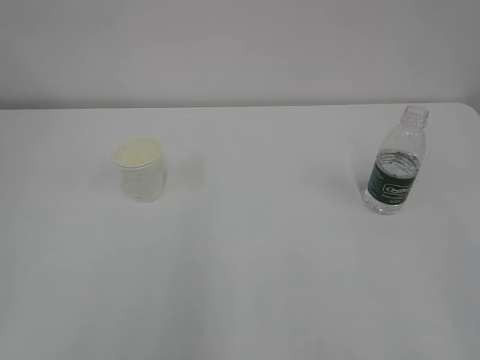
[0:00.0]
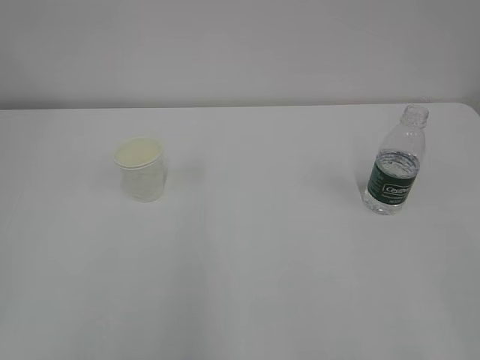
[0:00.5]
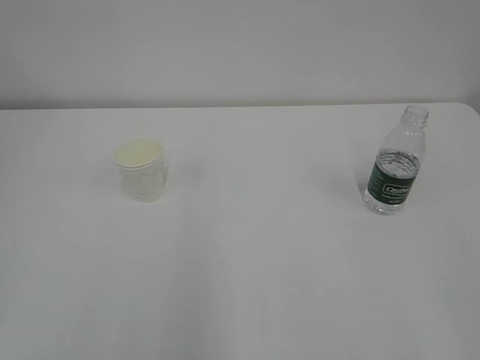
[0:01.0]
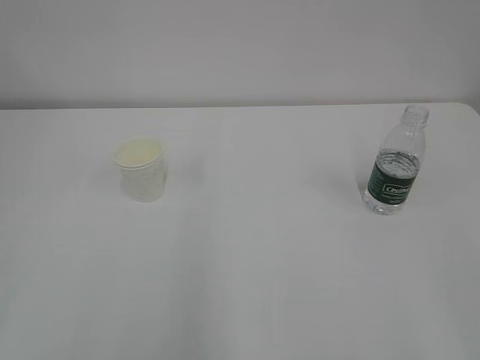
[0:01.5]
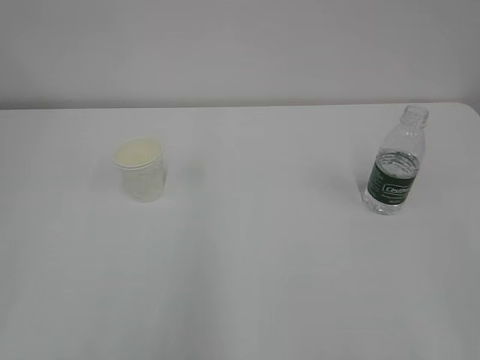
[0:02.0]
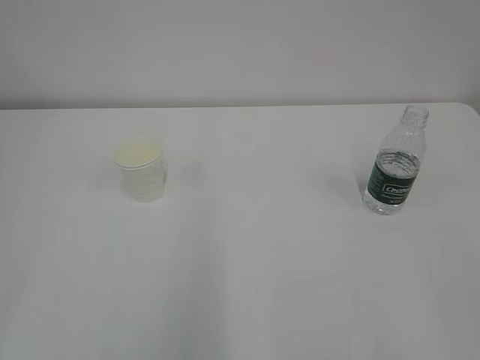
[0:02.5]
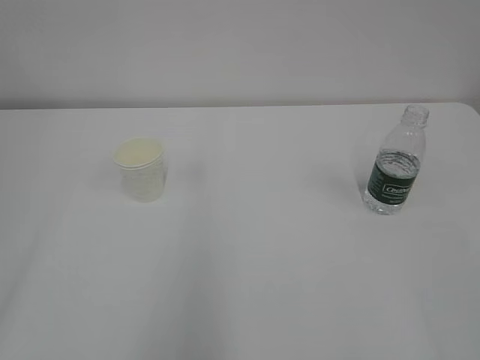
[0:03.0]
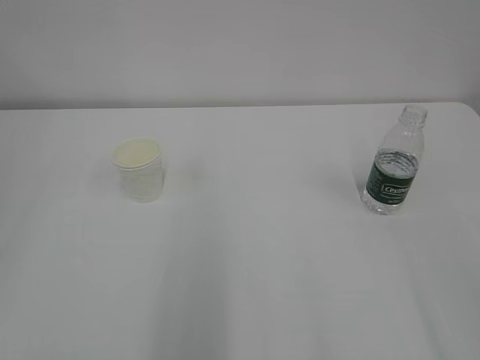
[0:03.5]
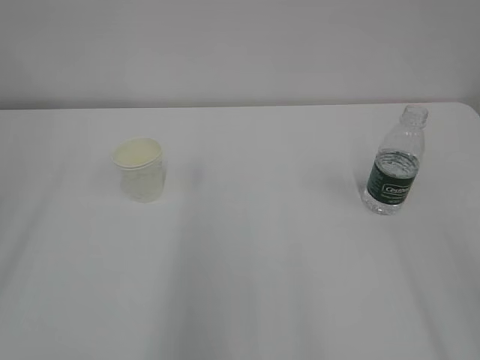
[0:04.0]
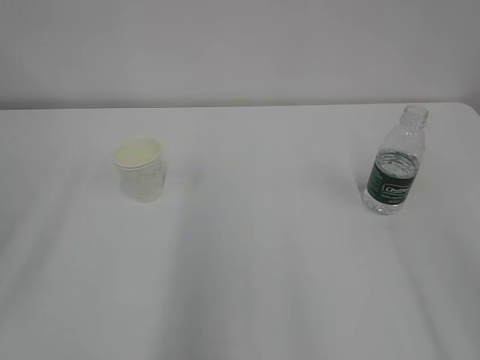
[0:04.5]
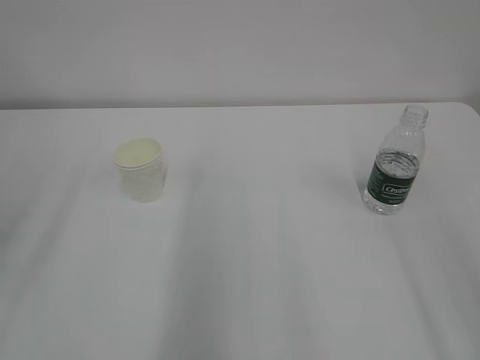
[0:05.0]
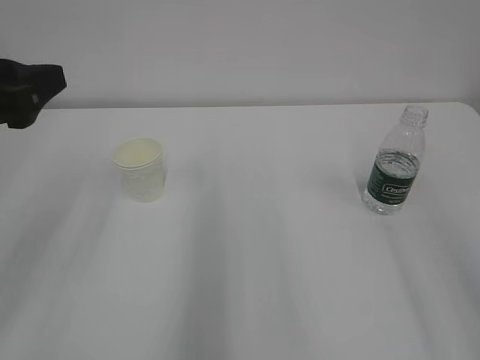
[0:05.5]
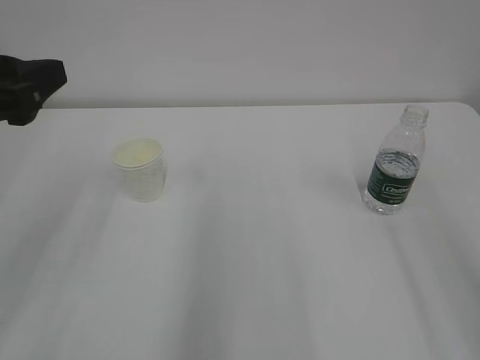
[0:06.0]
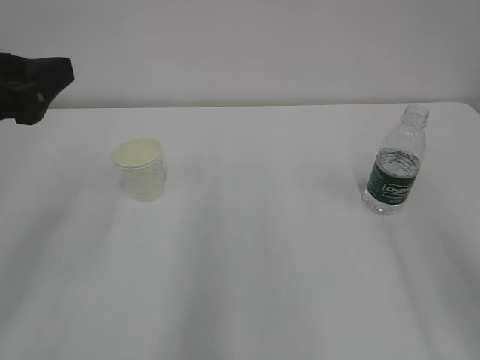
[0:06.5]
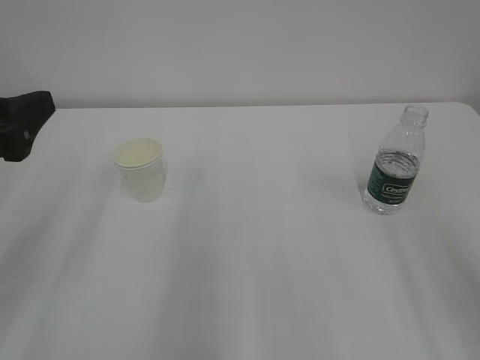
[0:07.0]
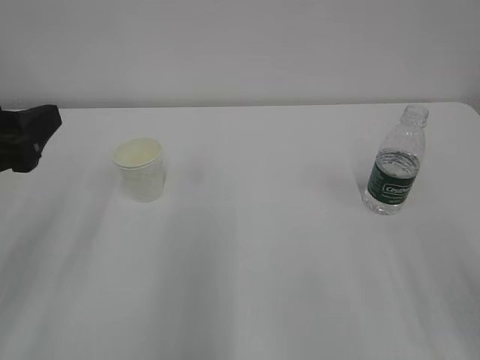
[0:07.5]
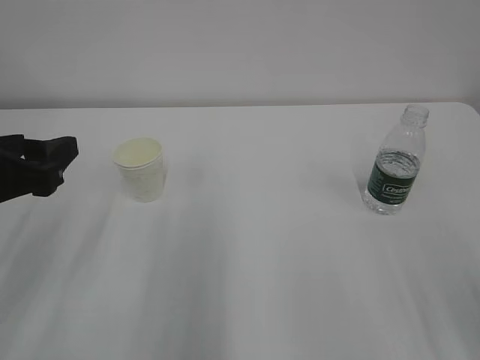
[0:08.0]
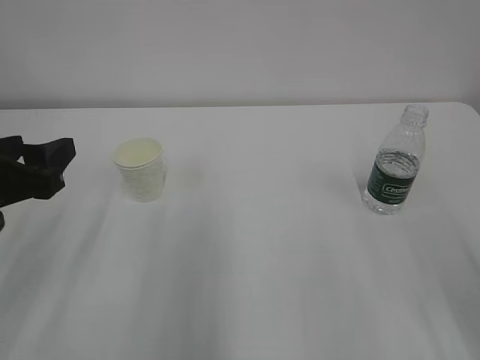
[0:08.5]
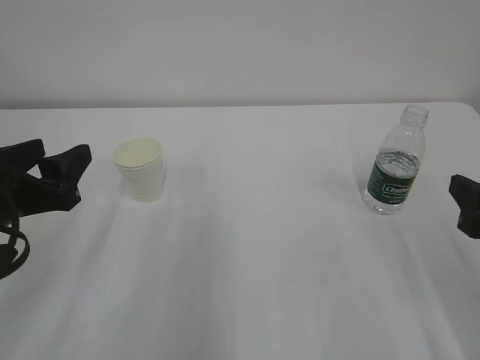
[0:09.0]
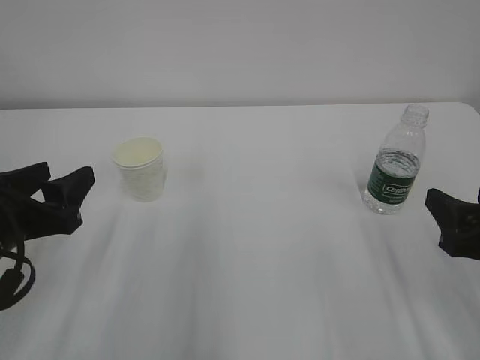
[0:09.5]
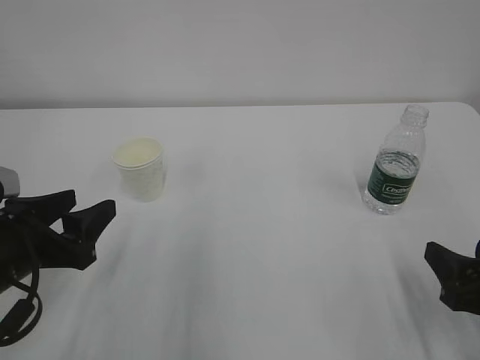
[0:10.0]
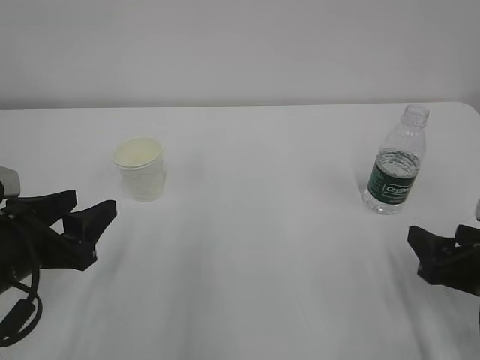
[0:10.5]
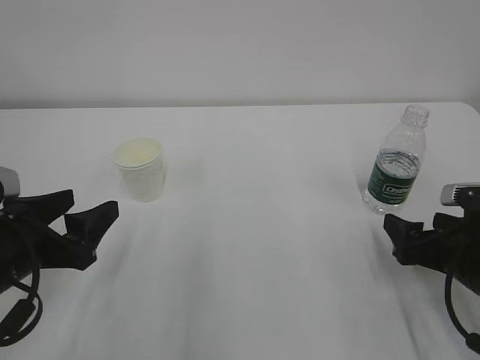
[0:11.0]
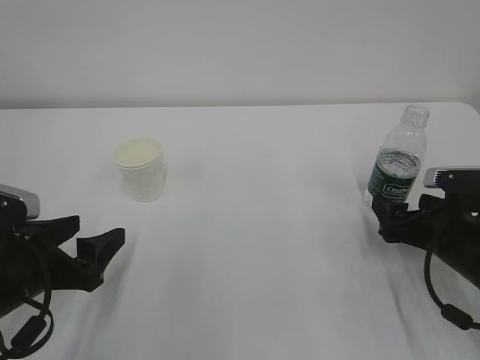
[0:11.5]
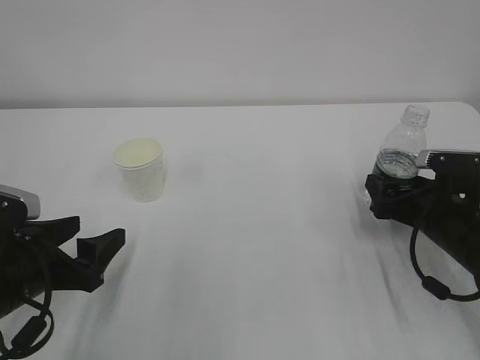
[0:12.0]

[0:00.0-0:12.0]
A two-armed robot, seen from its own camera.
0:04.0 to 0:06.0: The left gripper travels forward, to the right and downward by about 15 cm.
0:06.0 to 0:08.0: The left gripper moves downward, some 5 cm.
0:08.0 to 0:10.0: The grippers both shift downward by about 10 cm.
0:10.0 to 0:12.0: The right gripper shifts roughly 15 cm forward; the left gripper opens up.

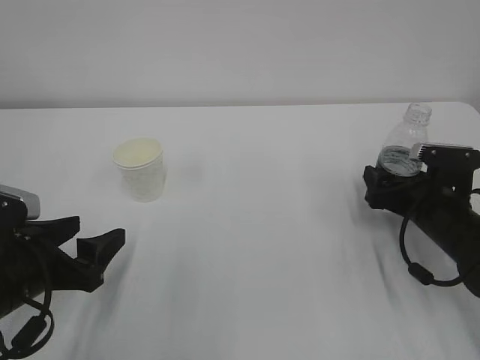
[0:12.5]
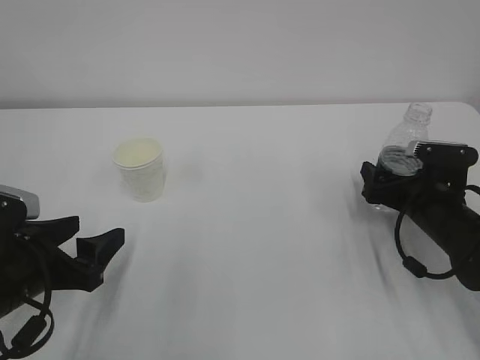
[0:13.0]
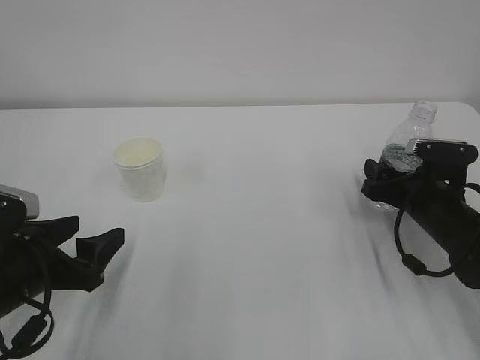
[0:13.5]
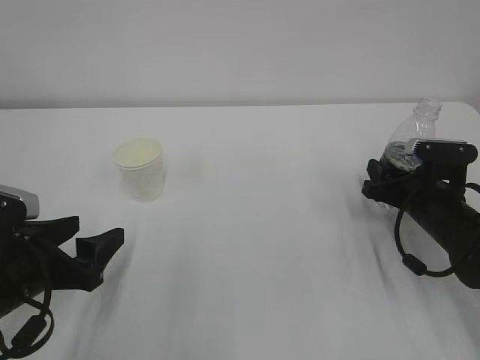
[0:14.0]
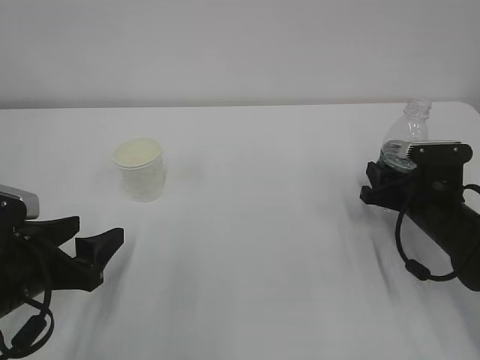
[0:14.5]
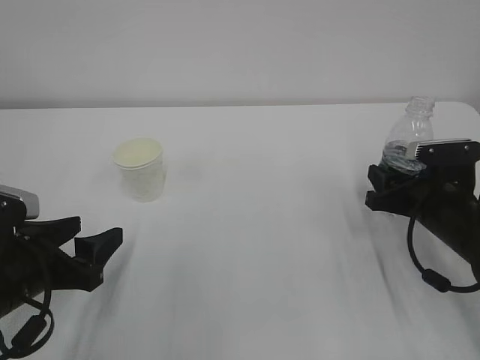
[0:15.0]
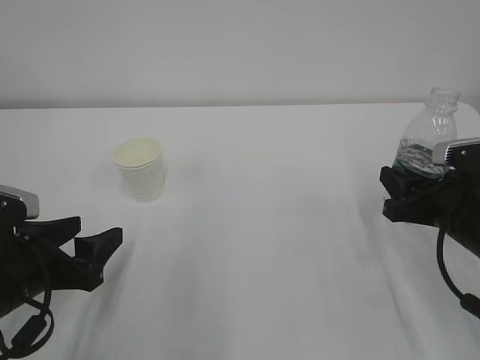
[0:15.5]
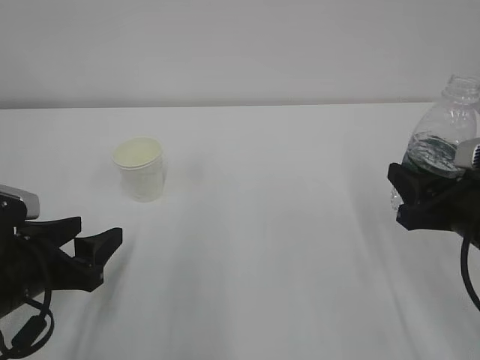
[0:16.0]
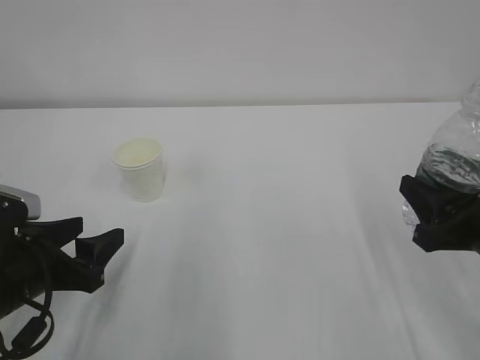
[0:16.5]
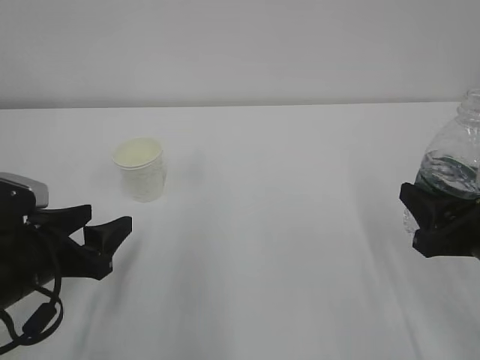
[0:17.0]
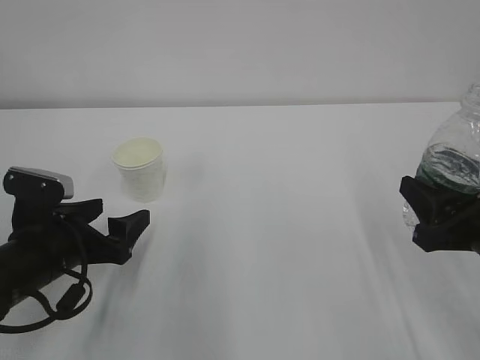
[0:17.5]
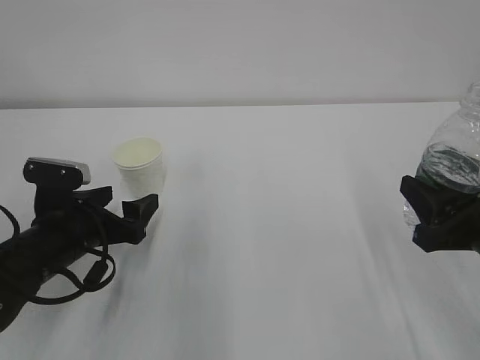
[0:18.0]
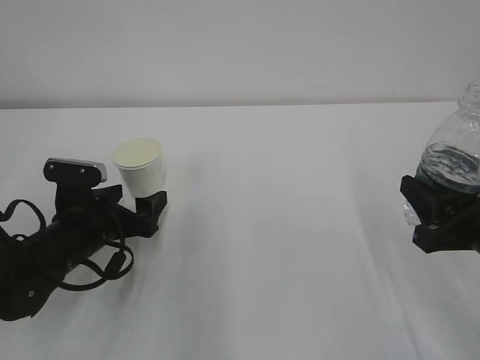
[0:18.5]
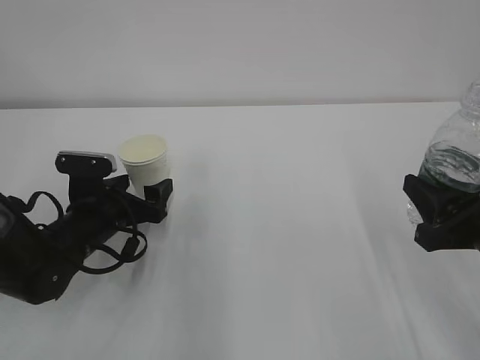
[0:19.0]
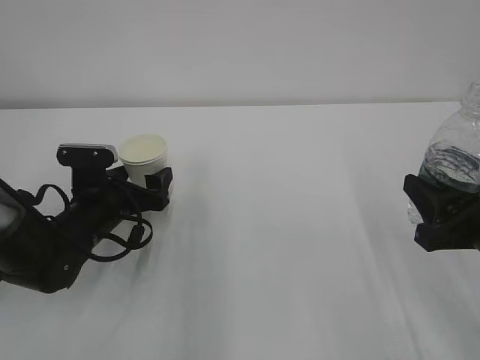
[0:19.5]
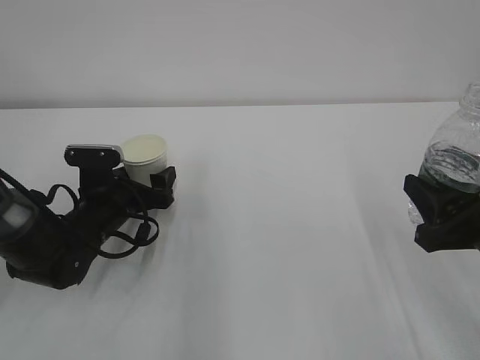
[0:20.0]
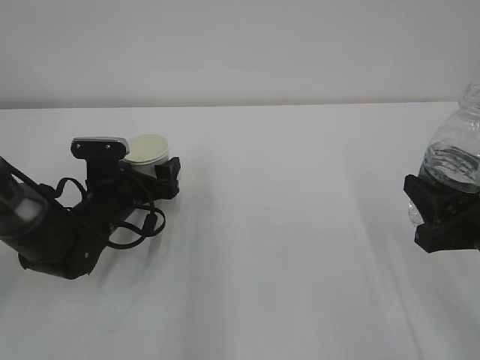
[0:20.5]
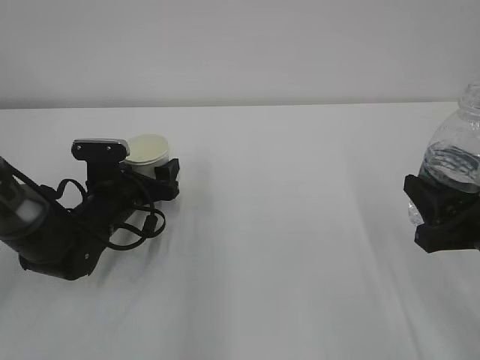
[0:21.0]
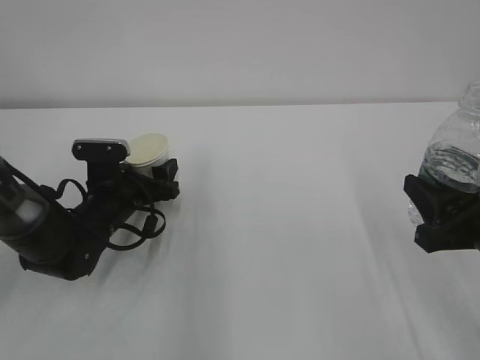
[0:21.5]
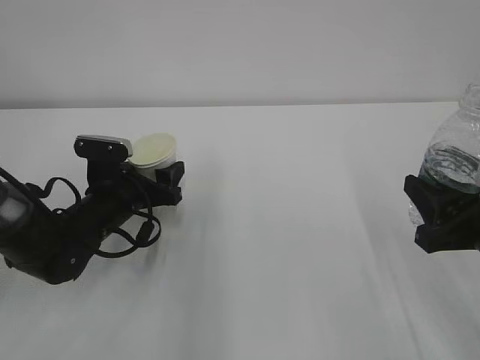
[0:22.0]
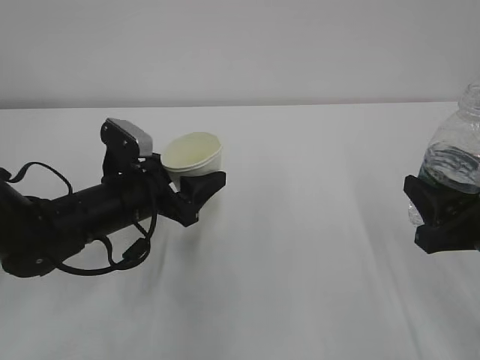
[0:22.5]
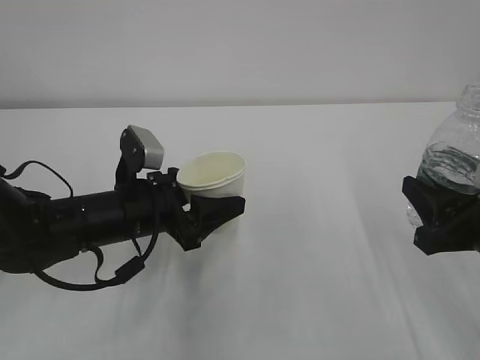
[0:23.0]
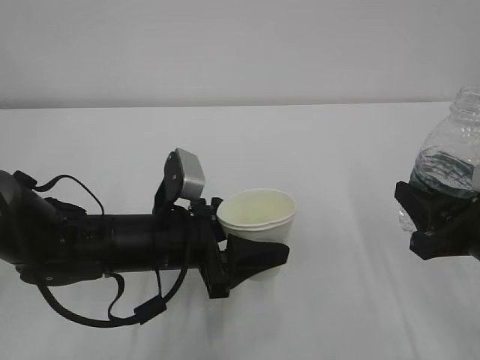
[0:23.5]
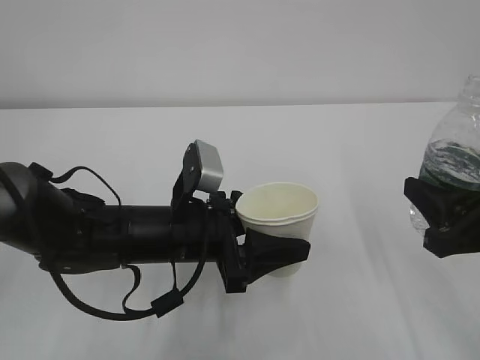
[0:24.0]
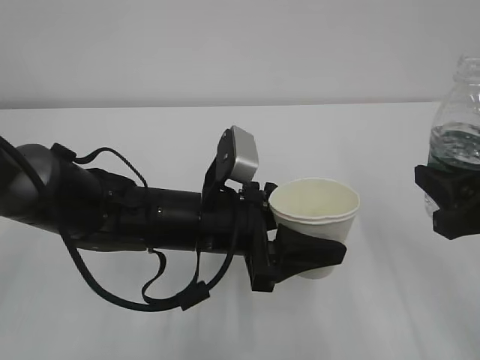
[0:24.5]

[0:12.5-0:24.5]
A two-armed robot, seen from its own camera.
0:12.5 to 0:14.5: The right gripper closes up.
0:14.5 to 0:16.5: The right gripper shifts roughly 15 cm backward and upward.
0:16.5 to 0:18.5: The left gripper travels forward by about 10 cm, and opens its fingers.
0:18.5 to 0:20.5: The left gripper heads forward, covering some 5 cm.
0:20.5 to 0:22.5: The left gripper moves upward and backward, about 5 cm, and closes.
0:22.5 to 0:24.5: The left gripper heads to the right and backward, covering roughly 10 cm.

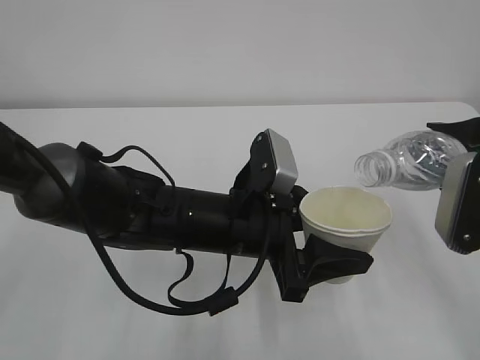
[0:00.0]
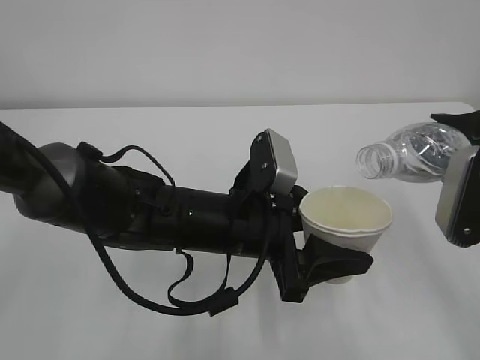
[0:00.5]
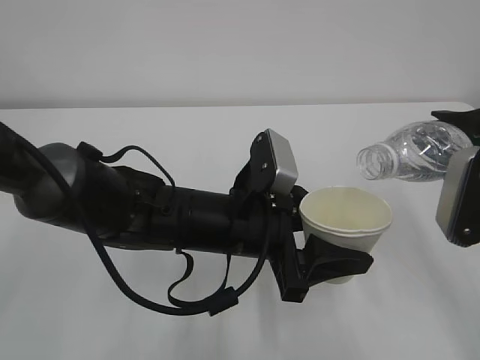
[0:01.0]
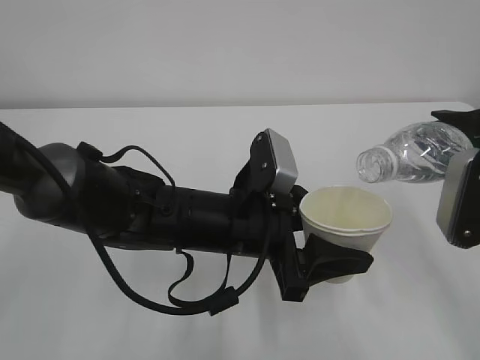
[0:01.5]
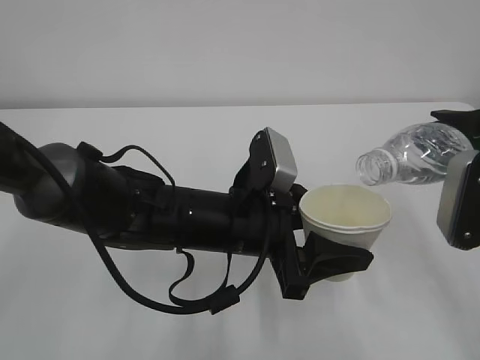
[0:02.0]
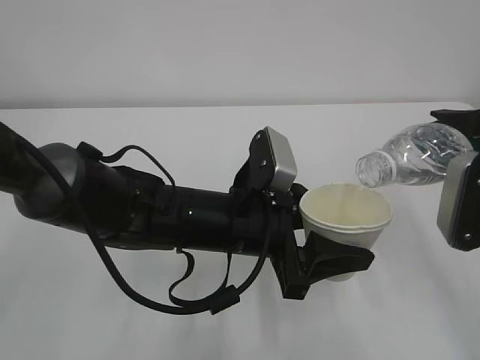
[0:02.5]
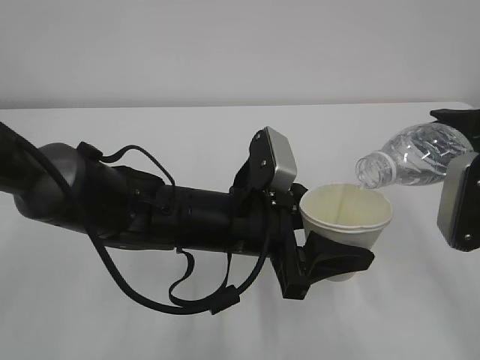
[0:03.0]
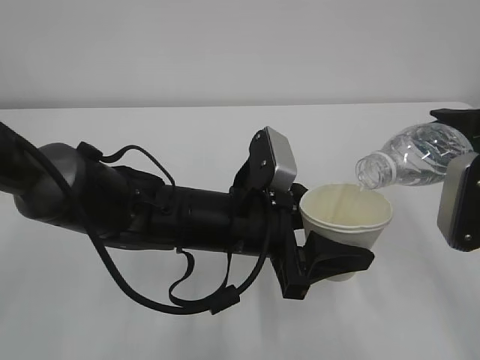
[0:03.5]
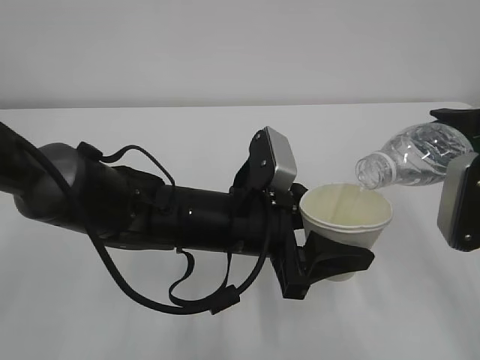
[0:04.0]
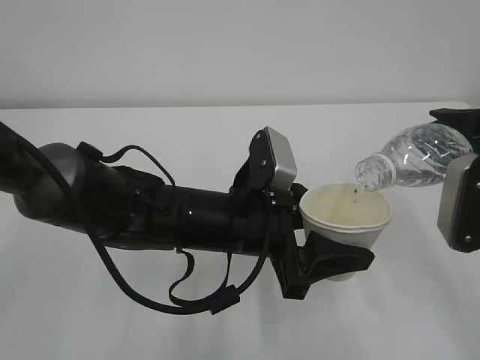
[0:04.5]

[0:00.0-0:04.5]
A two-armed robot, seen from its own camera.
0:00.0 to 0:02.0: The grippers make only small movements.
0:02.0 to 0:04.5: The two grippers keep their place.
